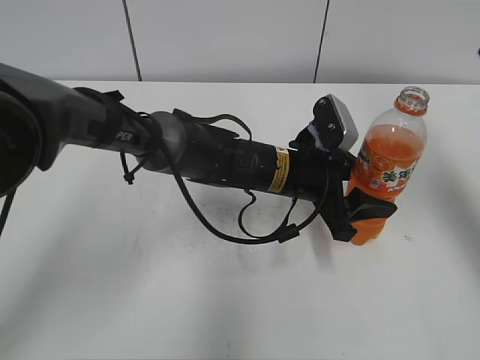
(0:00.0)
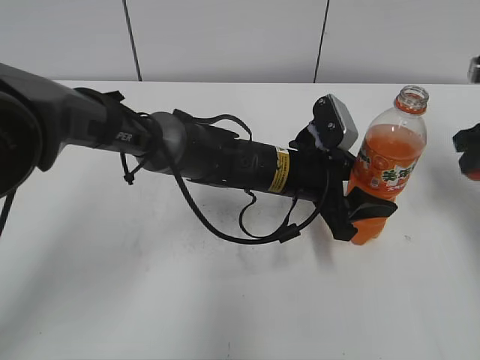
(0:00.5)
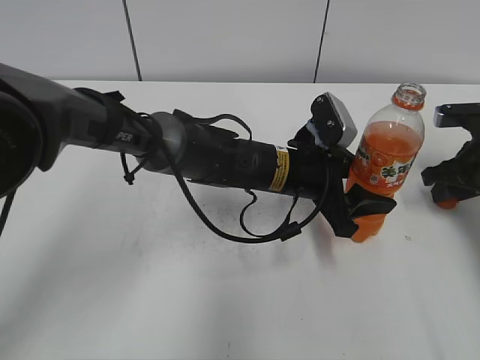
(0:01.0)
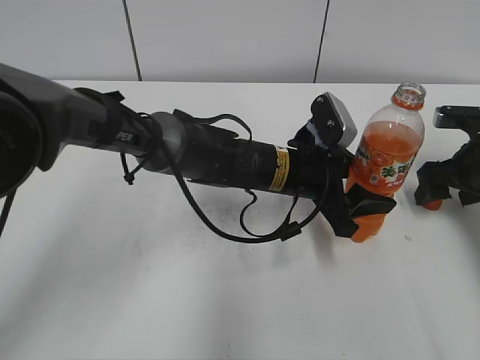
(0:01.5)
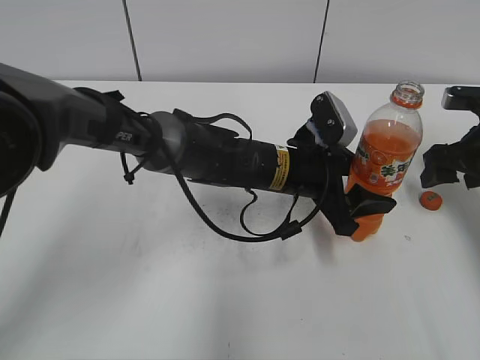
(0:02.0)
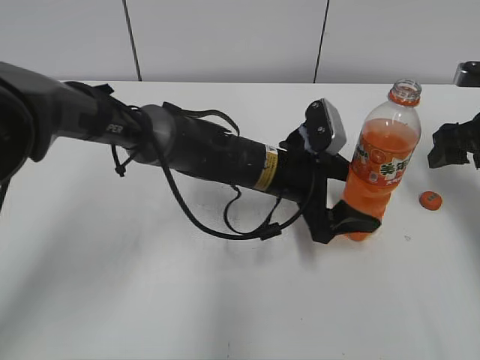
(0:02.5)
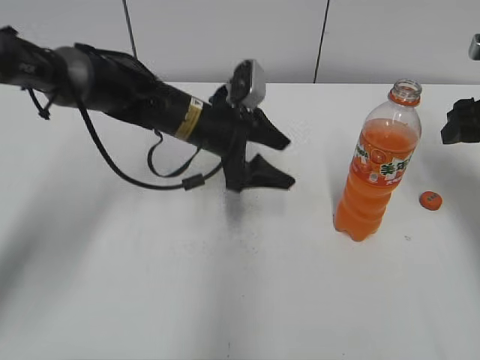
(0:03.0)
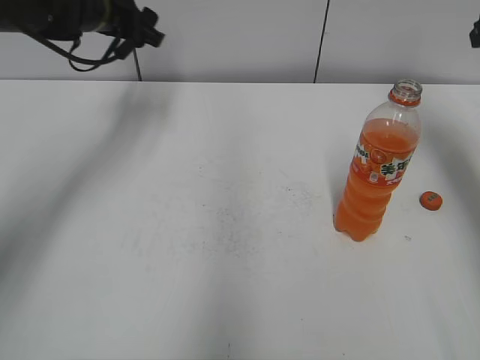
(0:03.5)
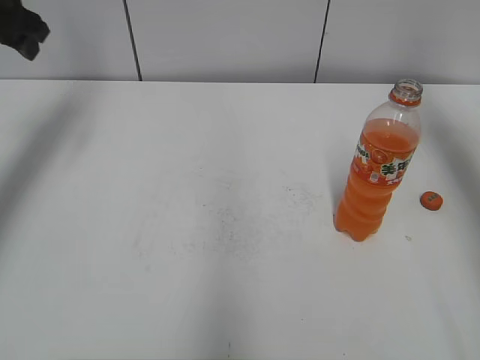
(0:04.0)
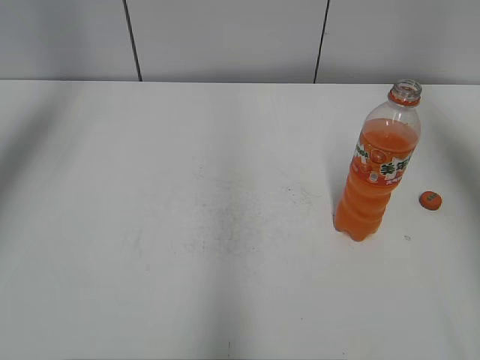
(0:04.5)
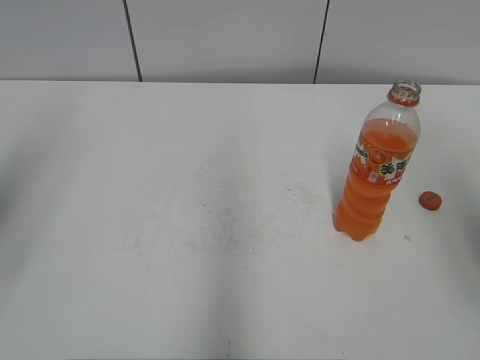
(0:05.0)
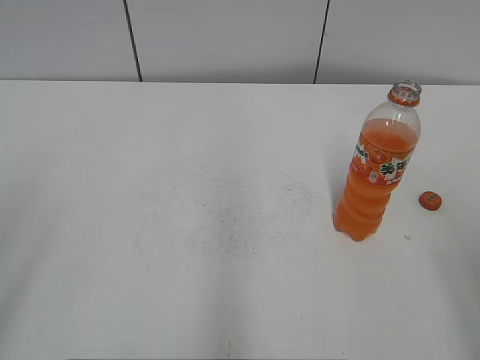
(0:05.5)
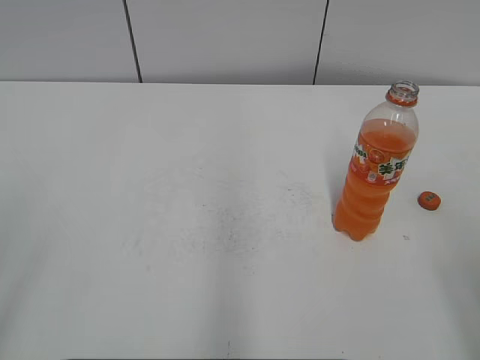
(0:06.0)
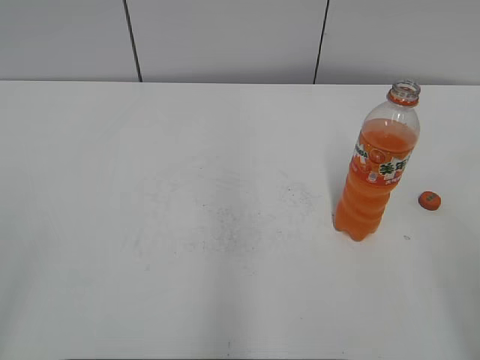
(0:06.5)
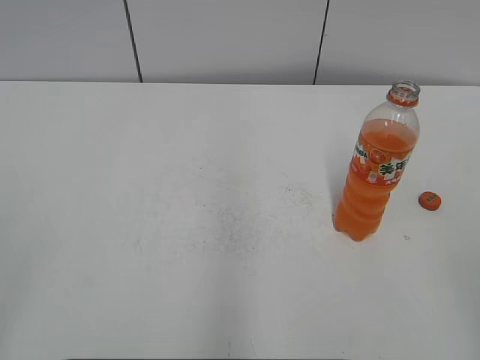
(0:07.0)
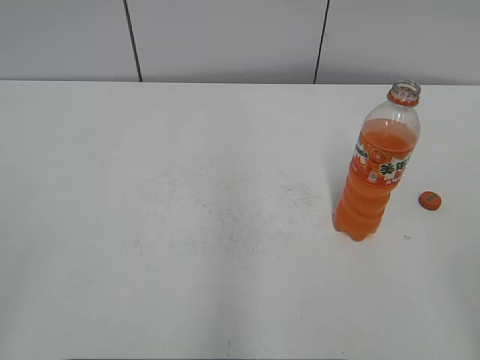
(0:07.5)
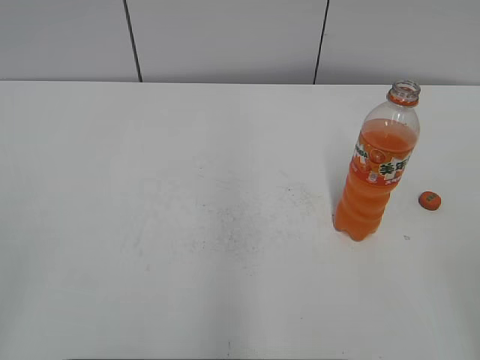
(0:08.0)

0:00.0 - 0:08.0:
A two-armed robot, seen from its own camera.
Step, 0:00.0 - 0:01.0: Place the bottle cap on the right.
0:00.0 - 0:02.0: The right gripper travels downward by some 25 cm, and opens up.
0:02.0 - 0:04.0: The left gripper shifts some 40 cm to the left and upward, and opens up. Meanwhile the right gripper heads upward, covering some 25 cm.
0:04.0 - 0:06.0: The two grippers go approximately 35 cm backward.

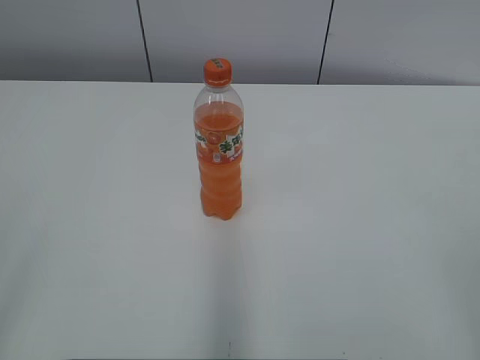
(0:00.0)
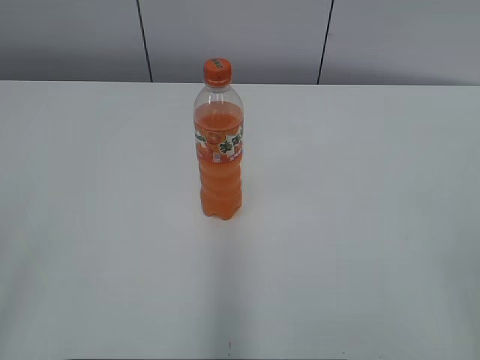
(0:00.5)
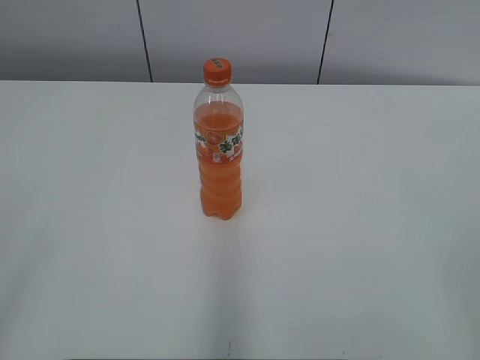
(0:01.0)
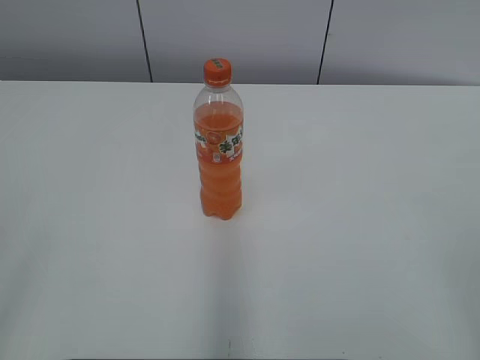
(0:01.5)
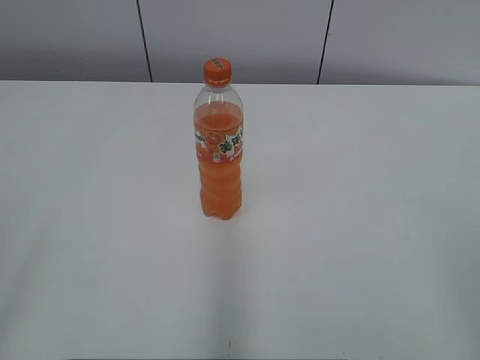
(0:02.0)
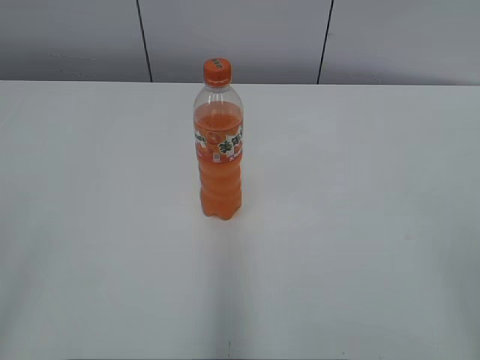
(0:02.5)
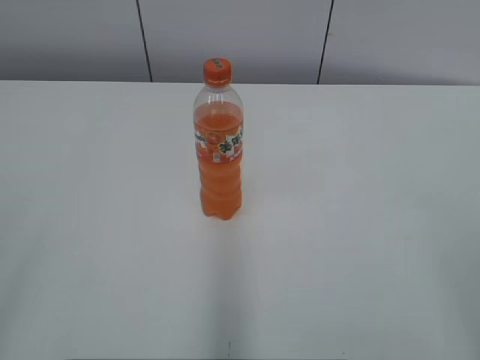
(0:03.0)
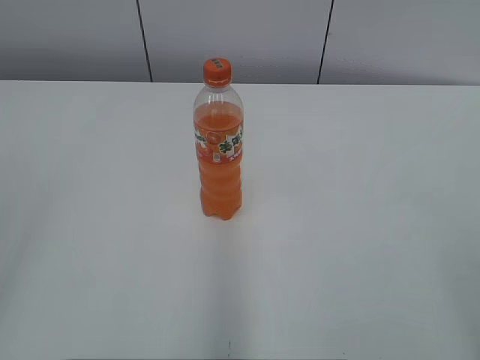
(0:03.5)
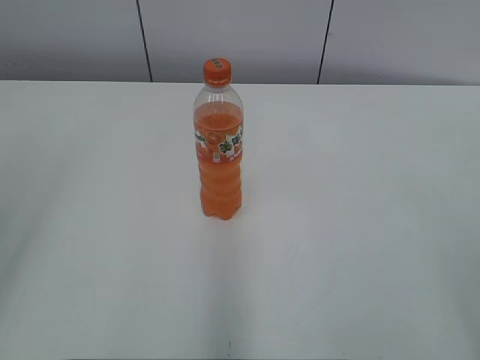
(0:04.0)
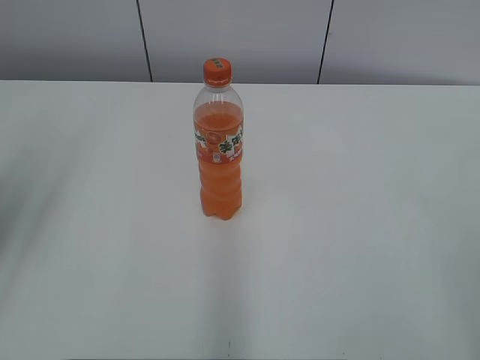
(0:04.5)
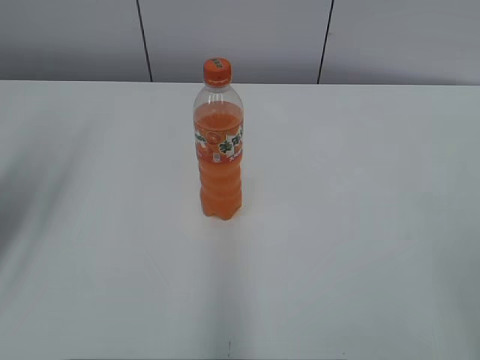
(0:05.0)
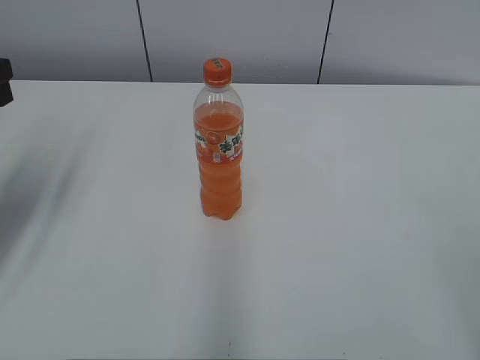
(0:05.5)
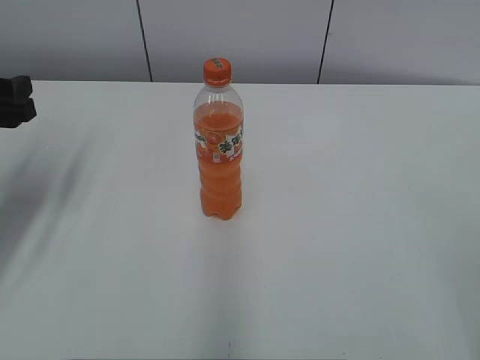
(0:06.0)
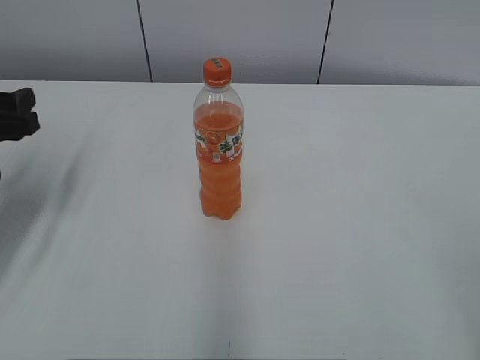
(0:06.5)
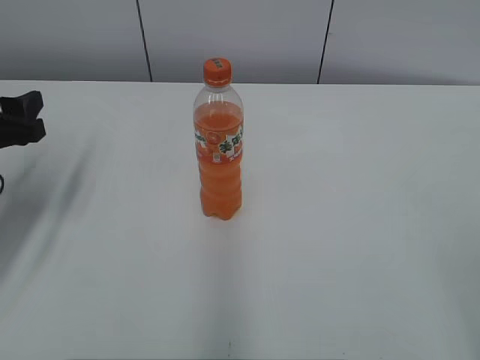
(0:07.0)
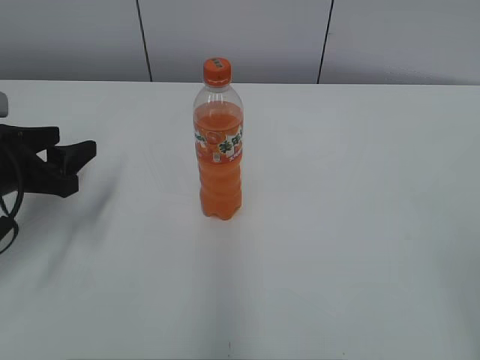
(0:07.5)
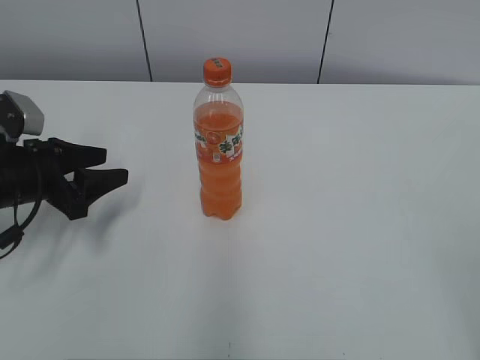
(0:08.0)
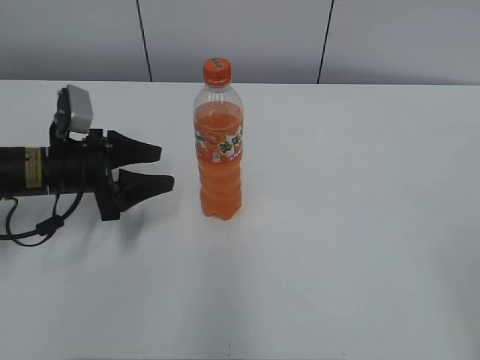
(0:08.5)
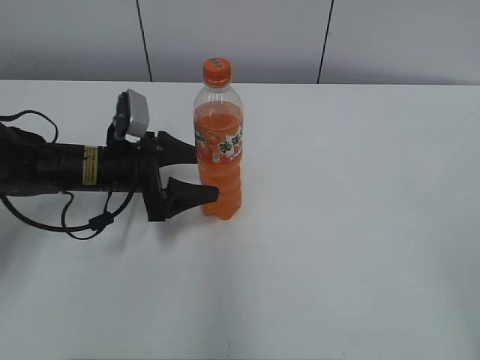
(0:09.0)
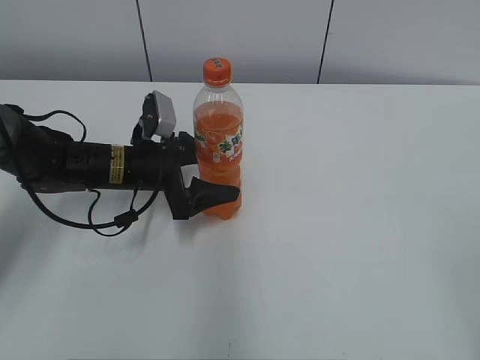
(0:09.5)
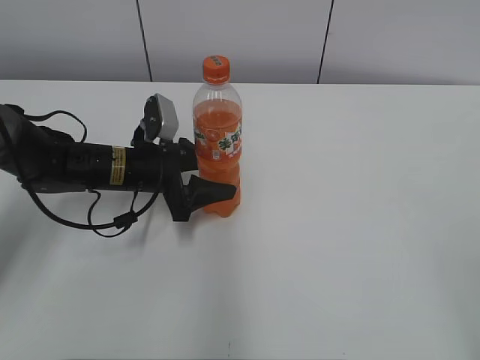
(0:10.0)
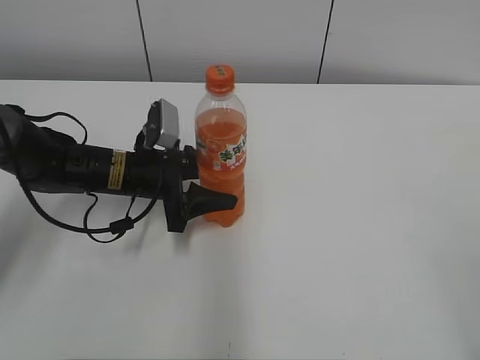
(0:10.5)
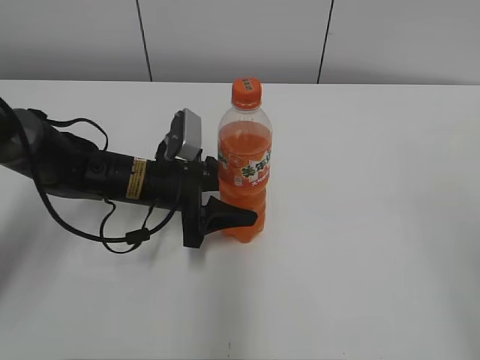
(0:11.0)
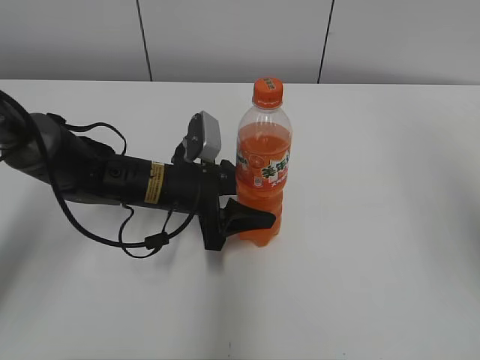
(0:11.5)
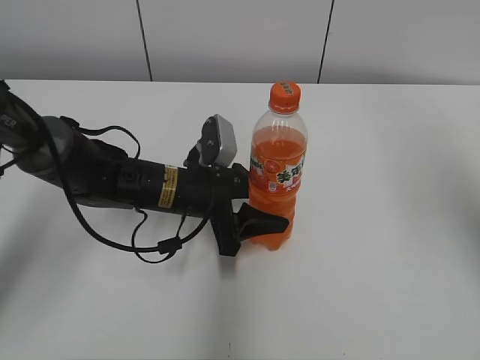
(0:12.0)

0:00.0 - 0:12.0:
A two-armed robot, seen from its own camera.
Step, 0:00.0 - 0:10.0: Grab the Mirinda with the left hand.
Step, 0:10.5 - 0:12.0: Move the Mirinda from left to right.
0:04.0 - 0:06.0: The left gripper goes some 25 cm forward and downward.
0:06.0 - 0:08.0: The left gripper goes some 10 cm downward, and closes its fingers.
0:08.0 - 0:10.0: The left gripper is displaced to the right and forward by roughly 15 cm, and opens, then closes once more.
0:10.0 - 0:12.0: The left gripper is displaced to the right by roughly 5 cm. The right gripper travels forward and upward by roughly 25 cm.

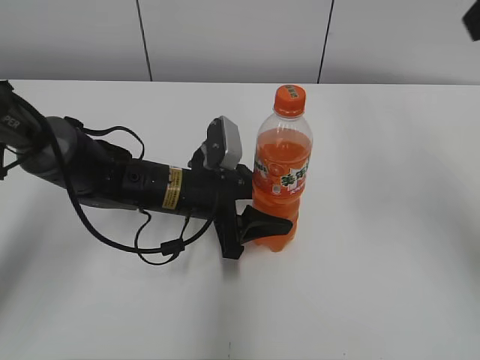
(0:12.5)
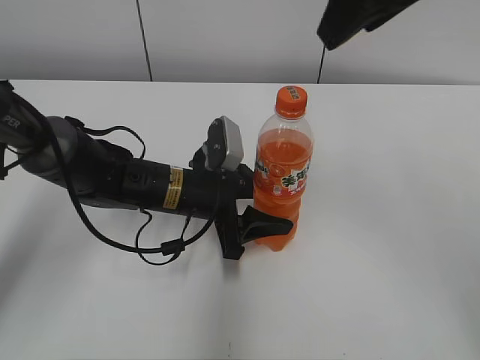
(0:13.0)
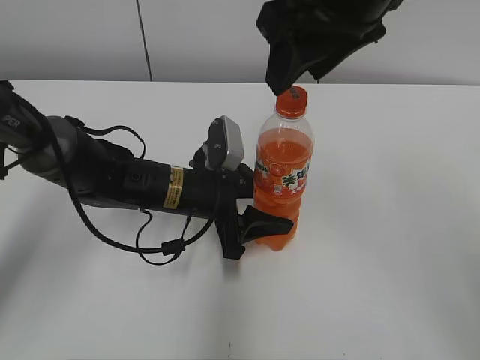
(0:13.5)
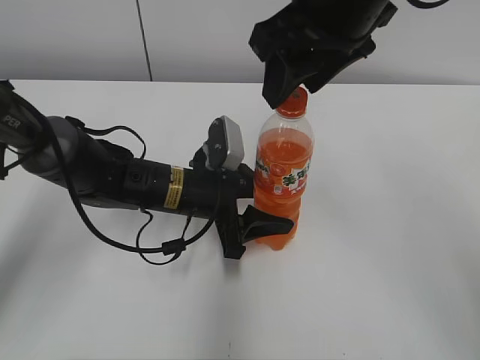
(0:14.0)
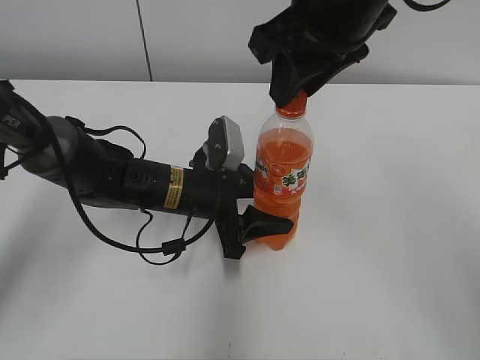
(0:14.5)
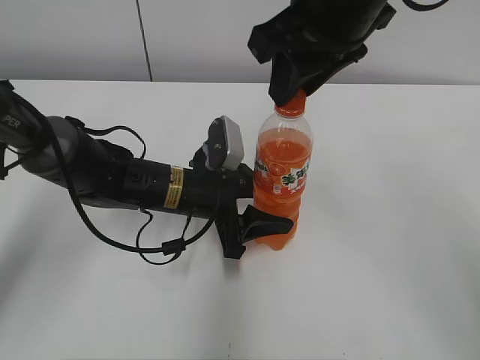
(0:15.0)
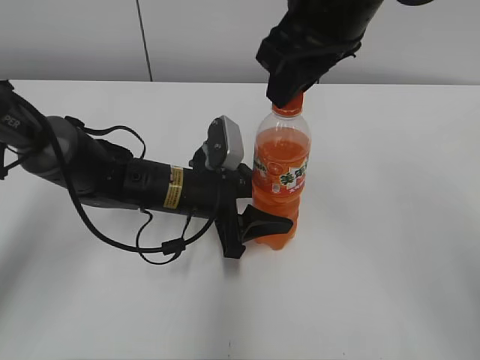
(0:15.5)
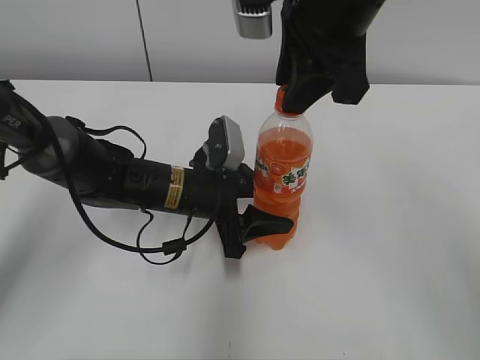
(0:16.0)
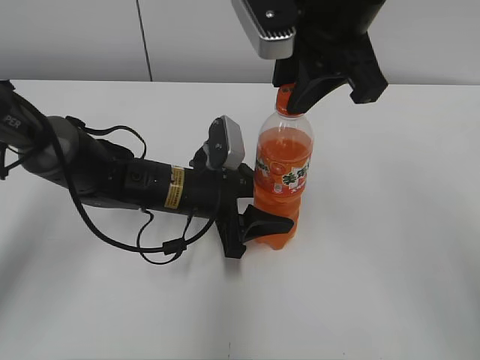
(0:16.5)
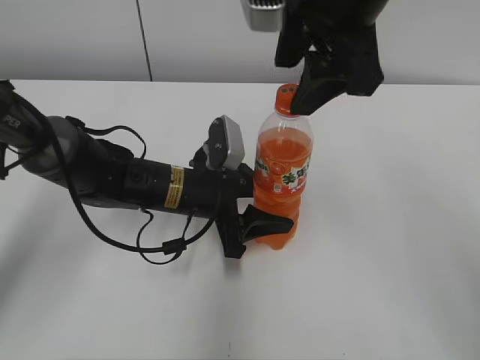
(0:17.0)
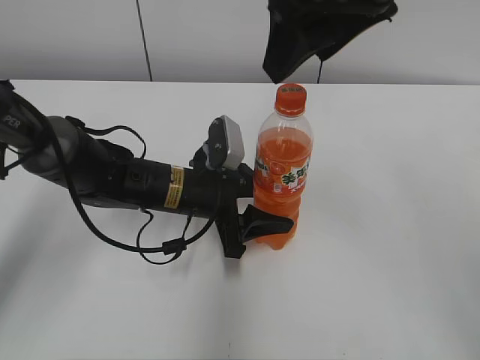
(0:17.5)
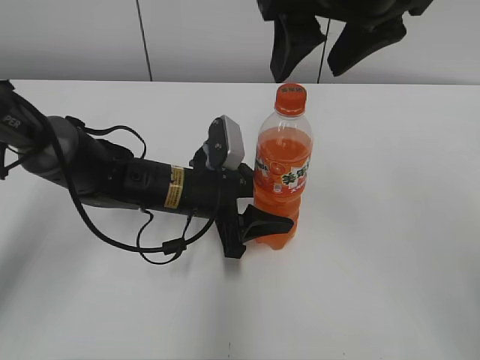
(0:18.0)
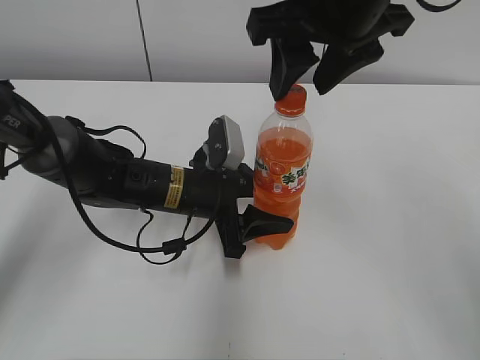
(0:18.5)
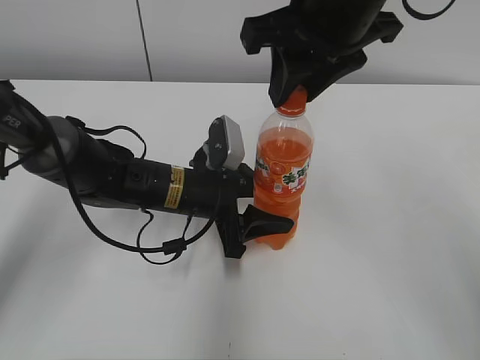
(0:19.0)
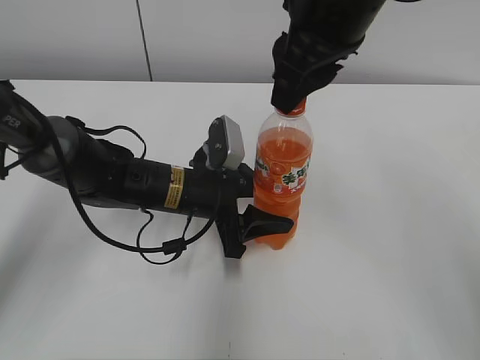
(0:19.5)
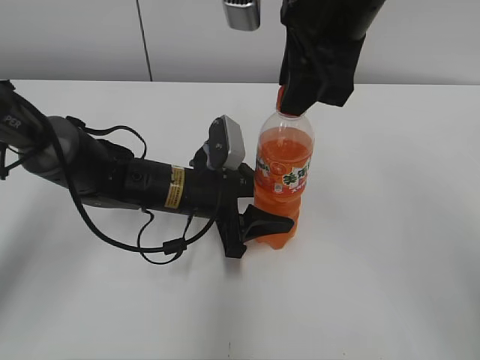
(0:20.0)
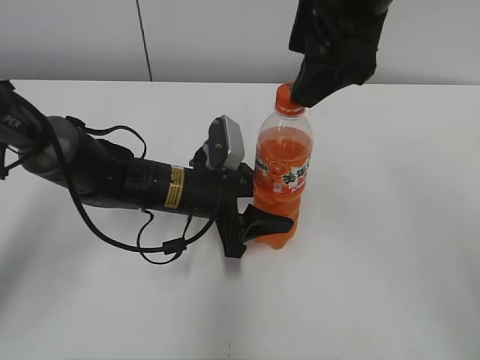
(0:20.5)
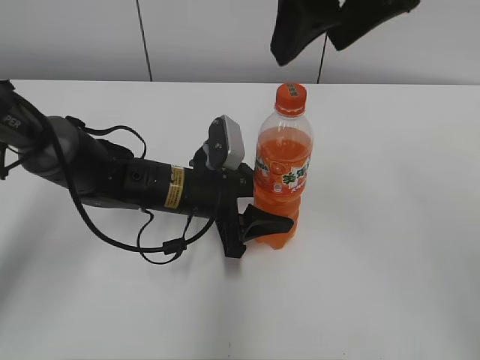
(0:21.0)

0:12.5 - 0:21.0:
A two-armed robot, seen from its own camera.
0:12.5 - 0:14.5: The right gripper goes approximately 15 cm to the left, downward and forward, and closes.
0:16.5 - 0:19.0: The right gripper opens and closes again.
0:19.0 - 0:21.0: The right gripper heads upward, covering some 5 cm, and opens up.
